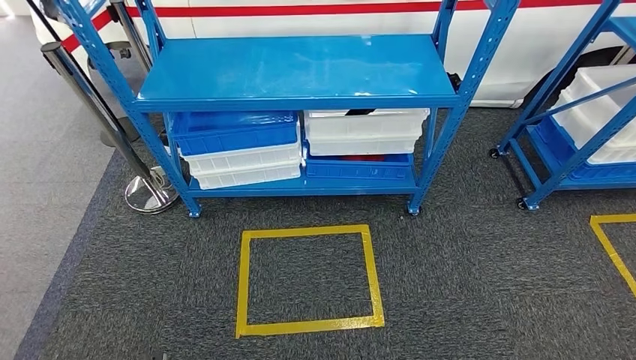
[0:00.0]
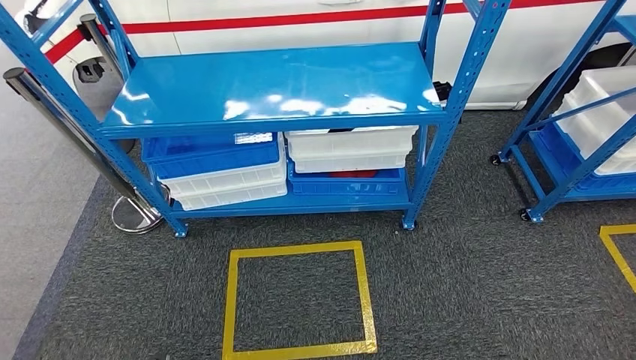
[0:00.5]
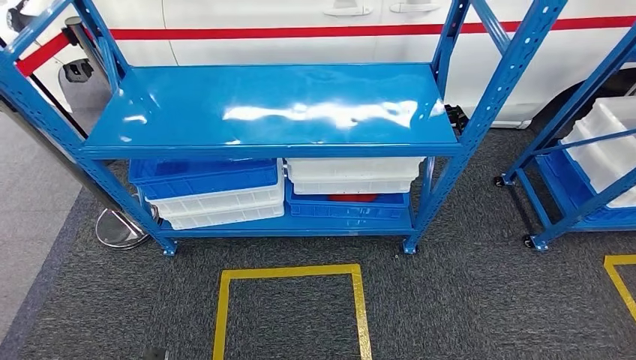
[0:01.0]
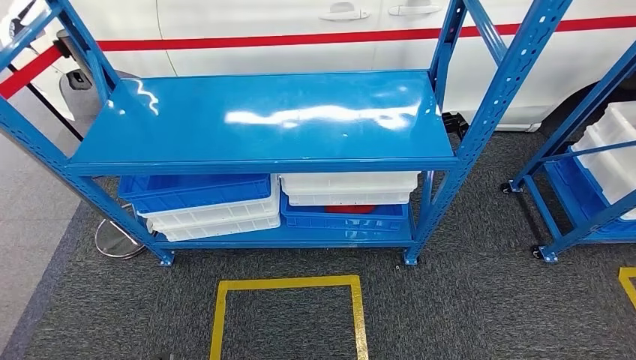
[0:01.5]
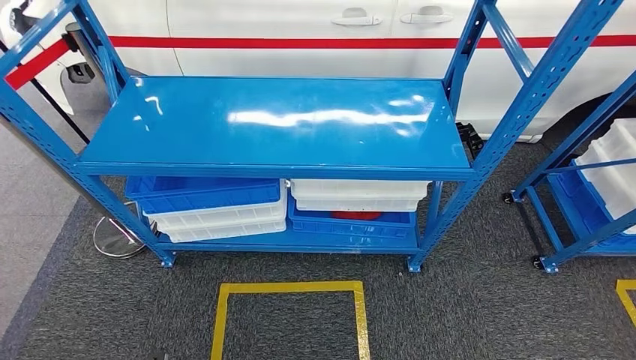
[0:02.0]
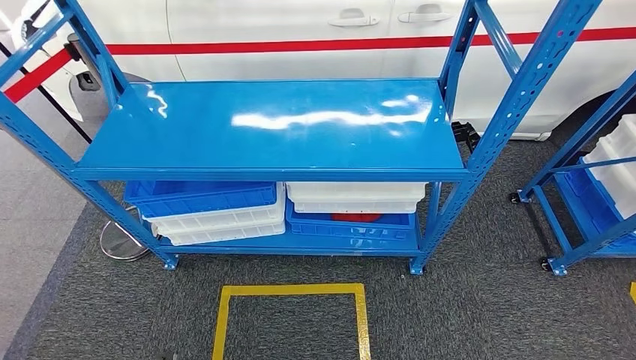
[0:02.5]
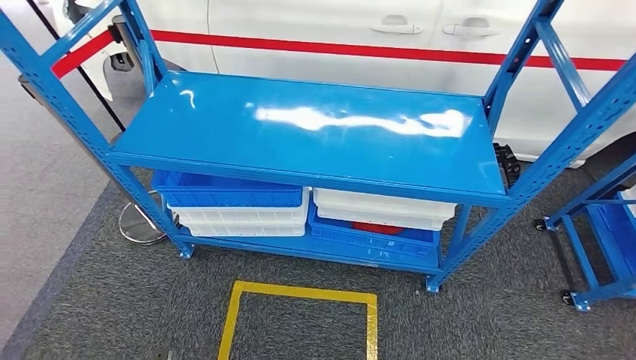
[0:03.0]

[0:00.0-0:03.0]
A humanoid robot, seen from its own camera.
Step, 0:00.0 to 0:03.0: Move to the initial position of the shelf.
